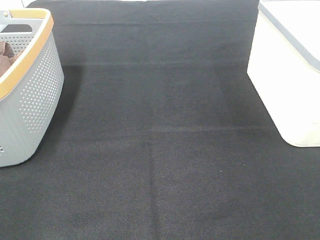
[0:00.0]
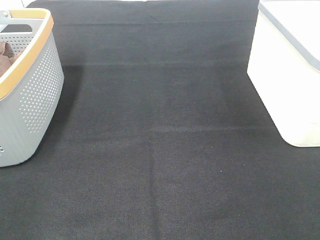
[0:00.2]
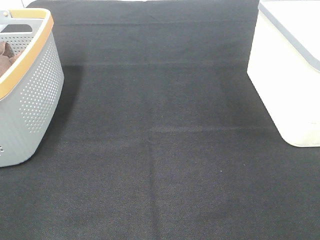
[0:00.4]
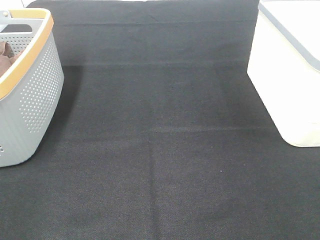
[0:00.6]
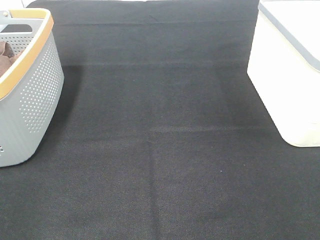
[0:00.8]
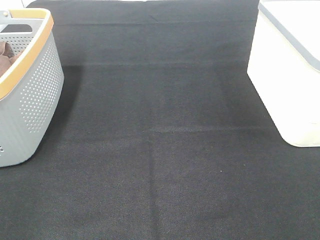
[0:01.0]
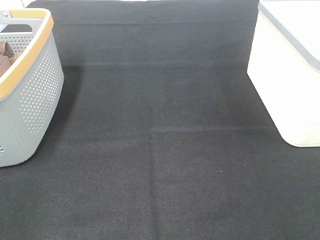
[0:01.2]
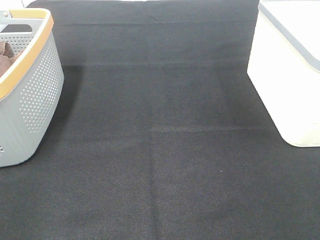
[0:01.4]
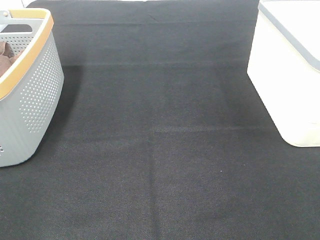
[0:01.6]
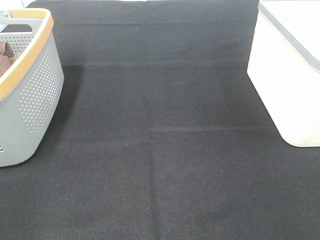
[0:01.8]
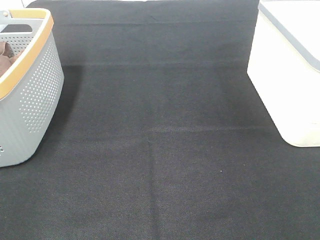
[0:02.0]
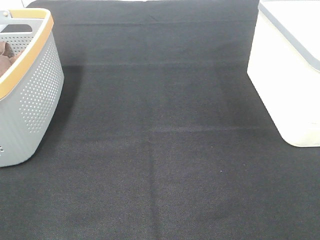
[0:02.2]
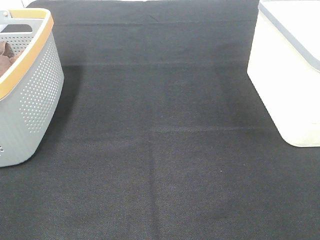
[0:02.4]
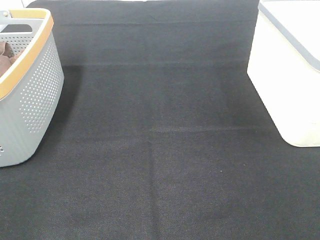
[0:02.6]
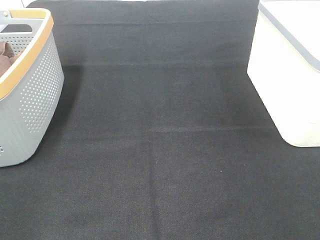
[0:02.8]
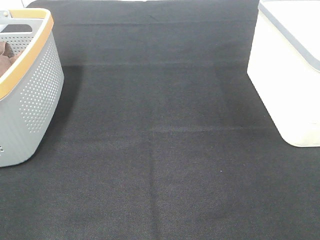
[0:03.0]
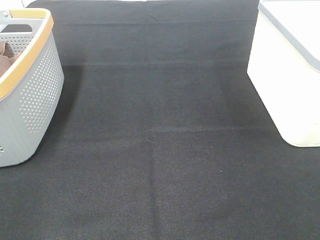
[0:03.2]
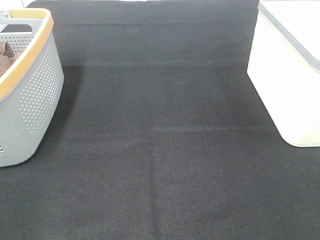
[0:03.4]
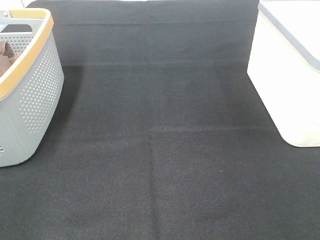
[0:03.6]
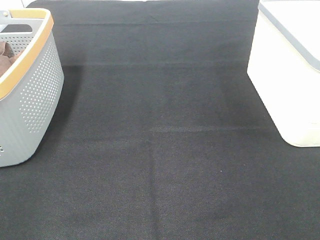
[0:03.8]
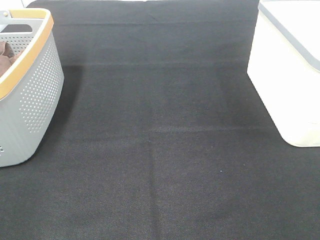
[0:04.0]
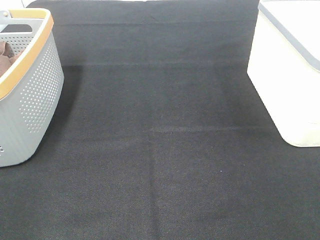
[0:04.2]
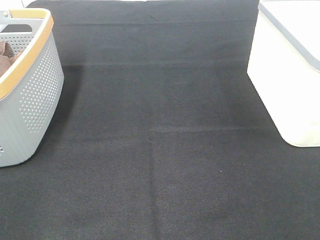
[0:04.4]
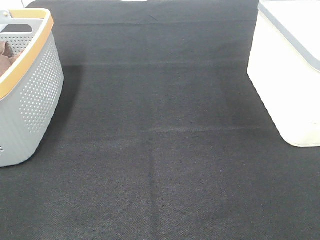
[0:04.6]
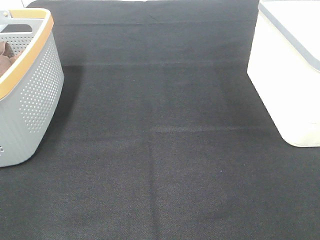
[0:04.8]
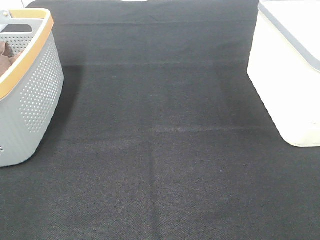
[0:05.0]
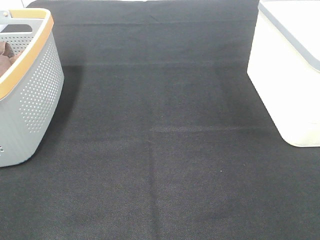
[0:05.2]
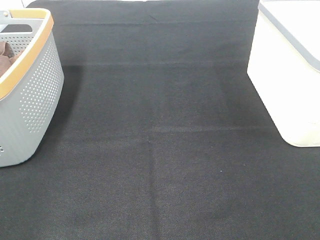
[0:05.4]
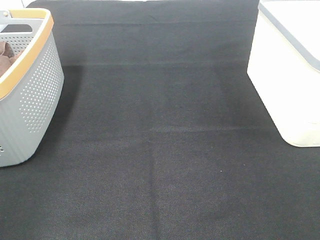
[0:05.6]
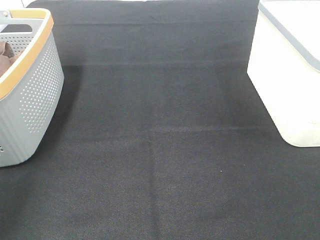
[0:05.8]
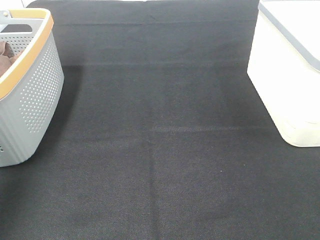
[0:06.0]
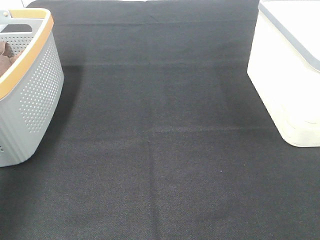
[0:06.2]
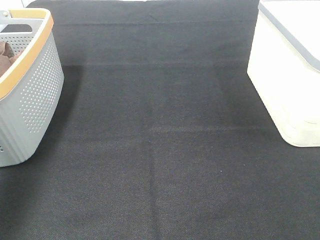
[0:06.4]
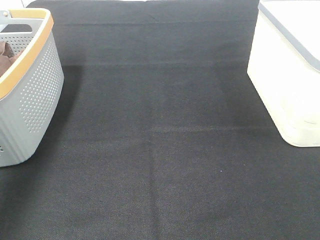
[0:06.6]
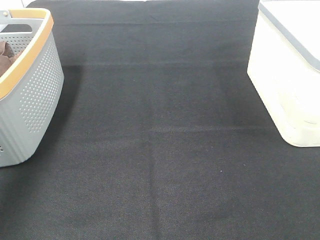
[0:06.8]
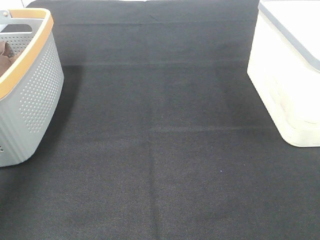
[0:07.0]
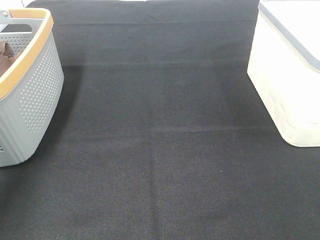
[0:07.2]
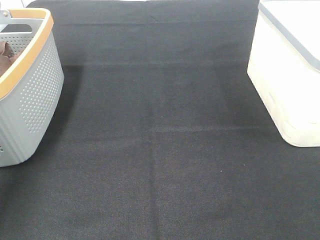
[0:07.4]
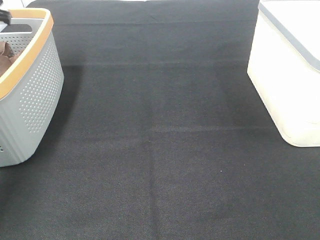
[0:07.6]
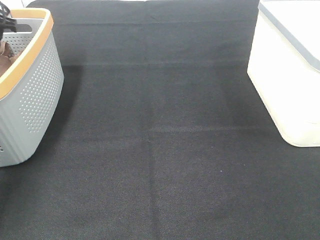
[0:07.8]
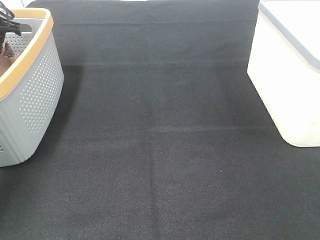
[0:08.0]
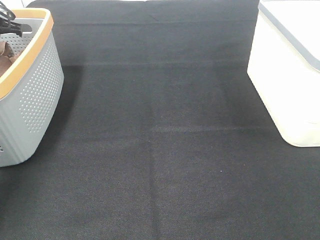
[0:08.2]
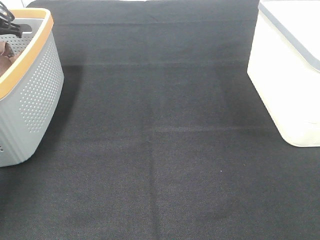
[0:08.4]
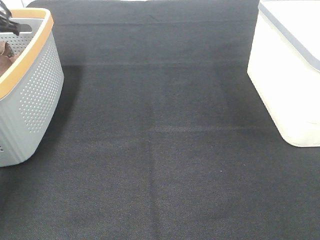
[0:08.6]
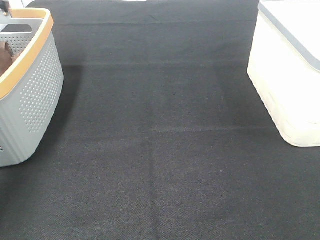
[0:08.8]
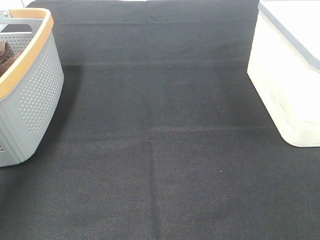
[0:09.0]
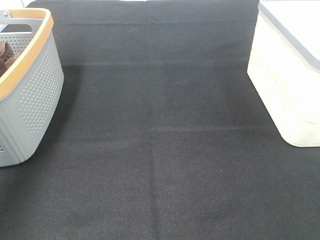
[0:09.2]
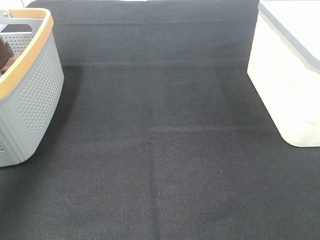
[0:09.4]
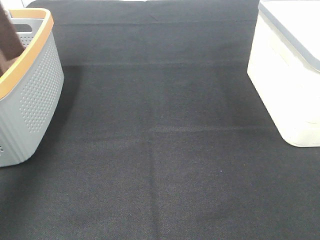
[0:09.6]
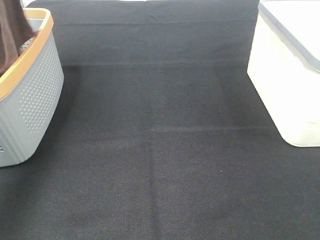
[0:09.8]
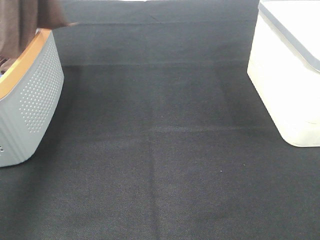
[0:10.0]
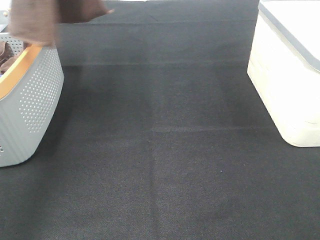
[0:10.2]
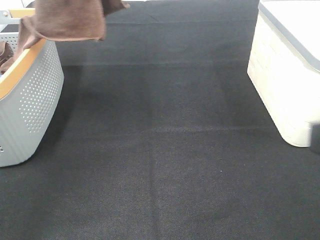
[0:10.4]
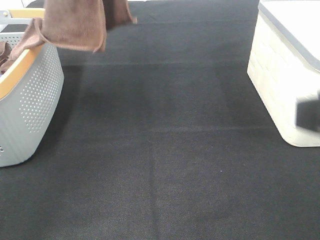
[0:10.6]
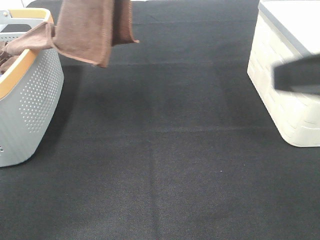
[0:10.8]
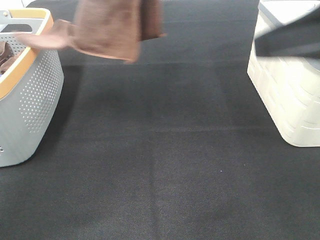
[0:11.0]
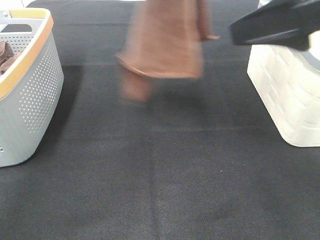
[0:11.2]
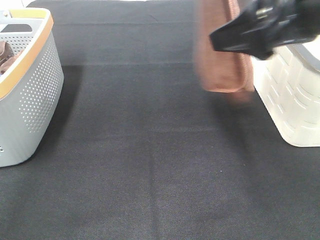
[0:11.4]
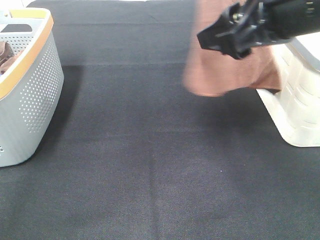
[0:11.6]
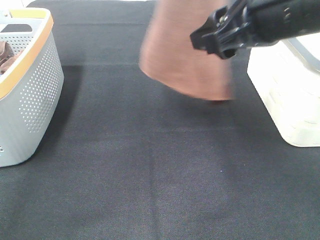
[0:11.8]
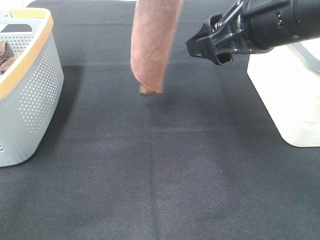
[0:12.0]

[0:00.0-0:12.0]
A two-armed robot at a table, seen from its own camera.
Task of the whole recording: Remove the towel and place it.
0:00.0 to 0:04.4: Neither gripper changes place.
0:04.4 to 0:06.0: The left gripper goes roughly 20 cm forward and upward.
0:06.0 to 0:07.6: The left gripper is displaced forward by roughly 30 cm.
0:09.0 to 0:10.4: The left gripper moves to the right, upward and backward, about 25 cm; the right gripper heads forward, covering approximately 5 cm.
0:10.4 to 0:12.0: The right gripper moves forward and to the left, roughly 20 cm. The left gripper goes approximately 15 cm to the right and downward.

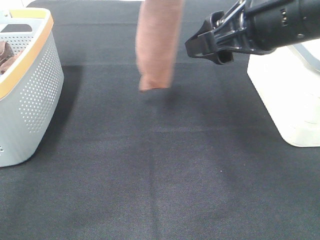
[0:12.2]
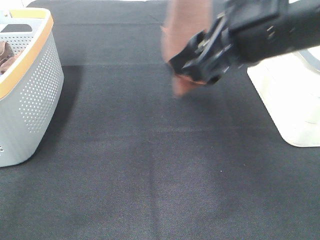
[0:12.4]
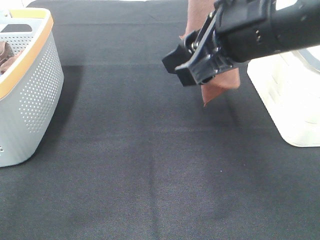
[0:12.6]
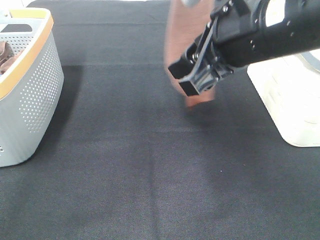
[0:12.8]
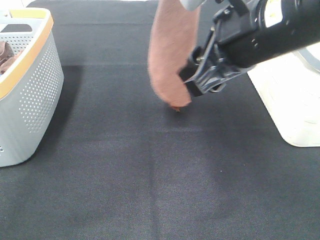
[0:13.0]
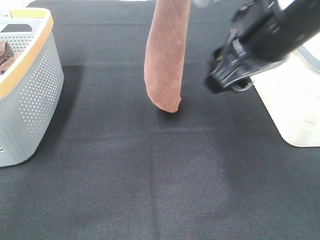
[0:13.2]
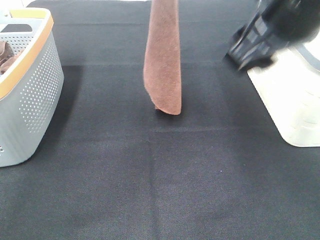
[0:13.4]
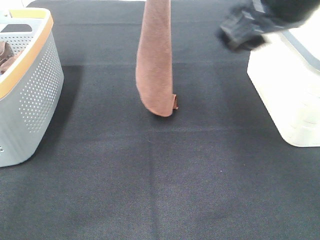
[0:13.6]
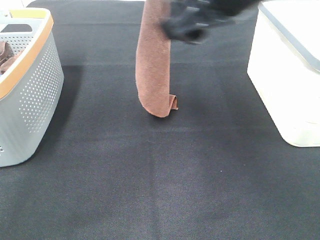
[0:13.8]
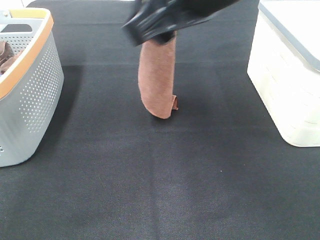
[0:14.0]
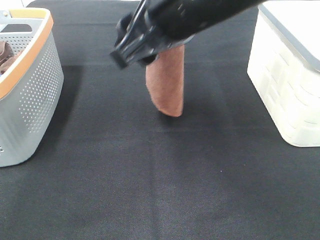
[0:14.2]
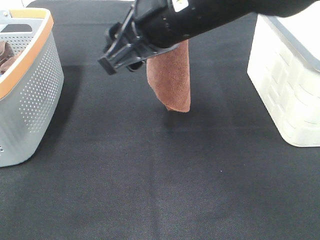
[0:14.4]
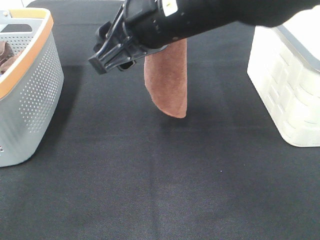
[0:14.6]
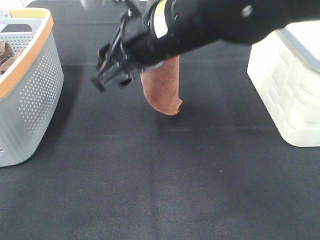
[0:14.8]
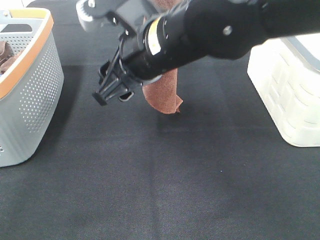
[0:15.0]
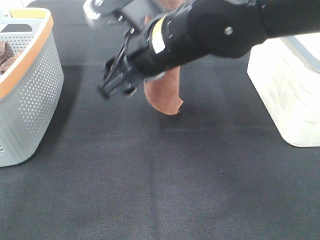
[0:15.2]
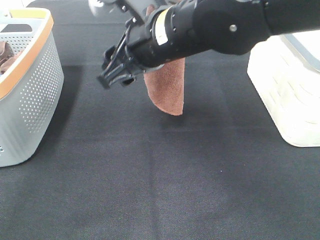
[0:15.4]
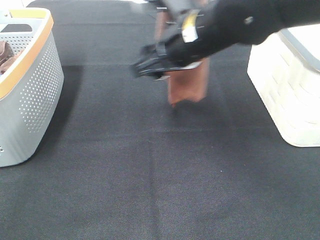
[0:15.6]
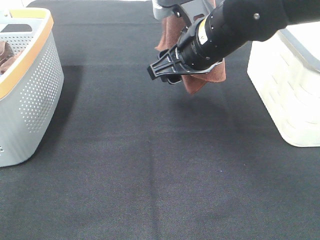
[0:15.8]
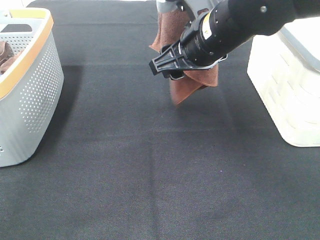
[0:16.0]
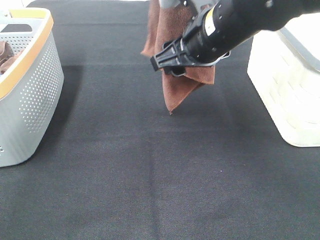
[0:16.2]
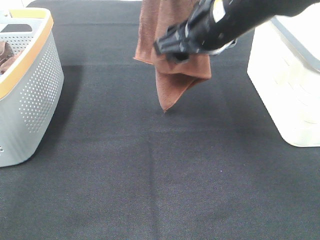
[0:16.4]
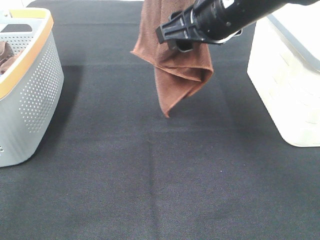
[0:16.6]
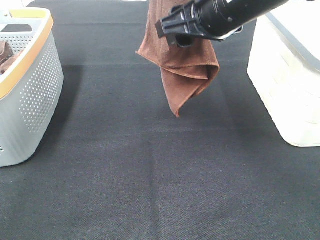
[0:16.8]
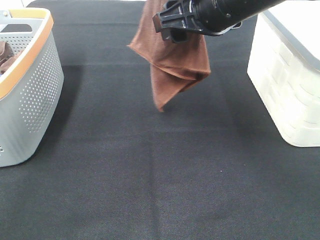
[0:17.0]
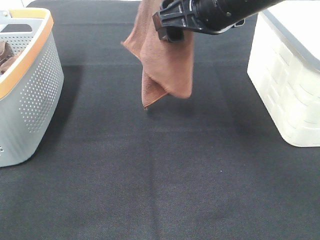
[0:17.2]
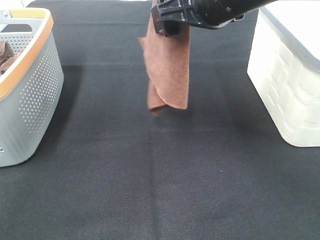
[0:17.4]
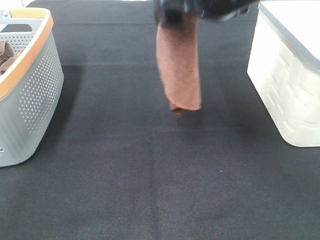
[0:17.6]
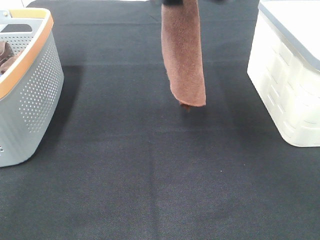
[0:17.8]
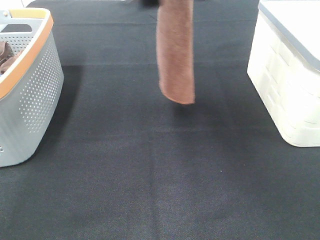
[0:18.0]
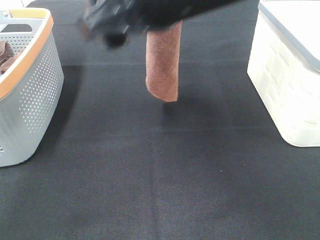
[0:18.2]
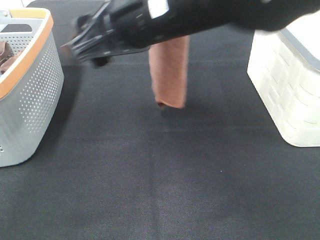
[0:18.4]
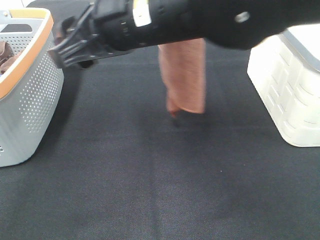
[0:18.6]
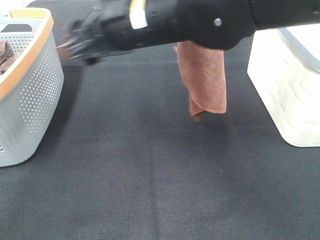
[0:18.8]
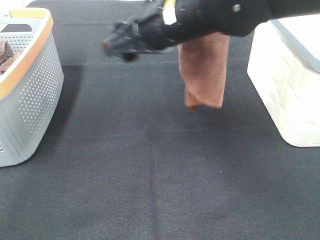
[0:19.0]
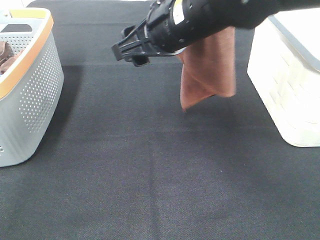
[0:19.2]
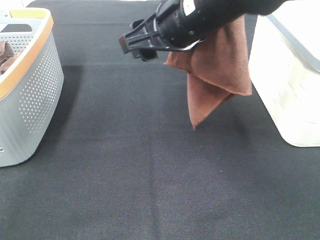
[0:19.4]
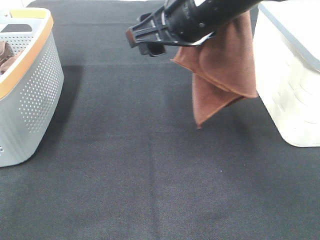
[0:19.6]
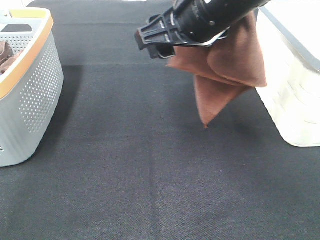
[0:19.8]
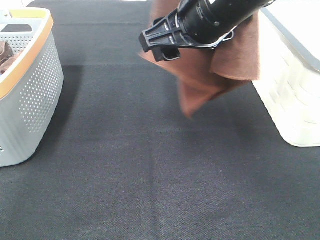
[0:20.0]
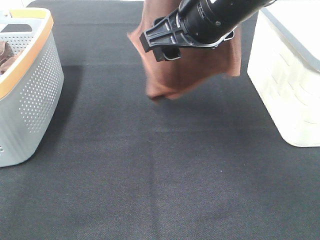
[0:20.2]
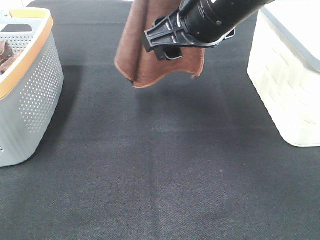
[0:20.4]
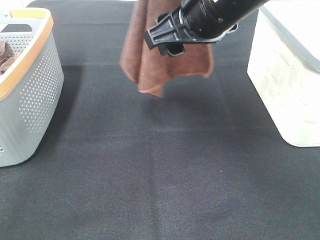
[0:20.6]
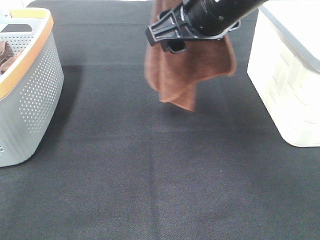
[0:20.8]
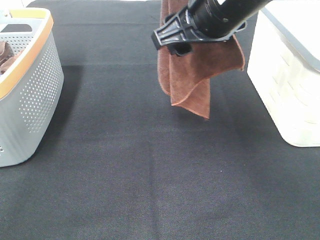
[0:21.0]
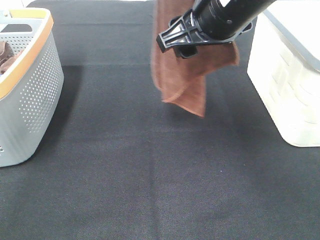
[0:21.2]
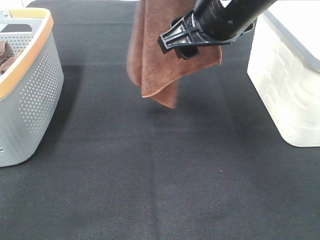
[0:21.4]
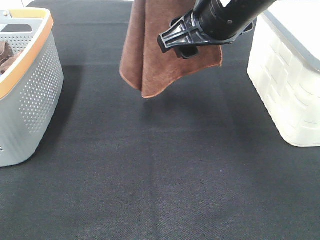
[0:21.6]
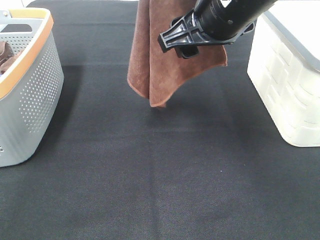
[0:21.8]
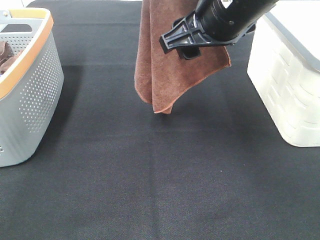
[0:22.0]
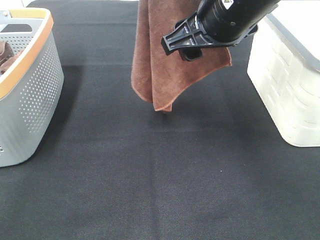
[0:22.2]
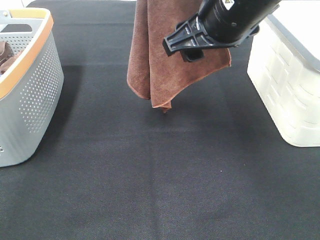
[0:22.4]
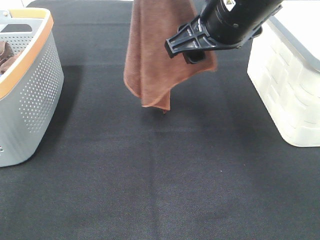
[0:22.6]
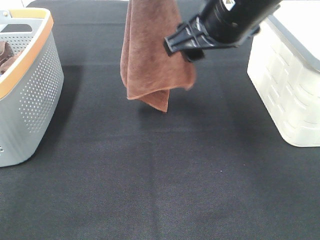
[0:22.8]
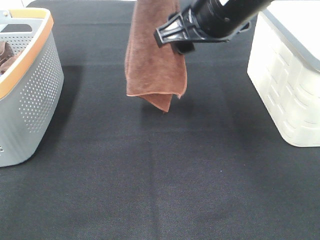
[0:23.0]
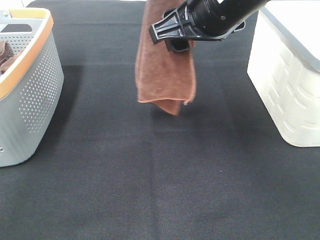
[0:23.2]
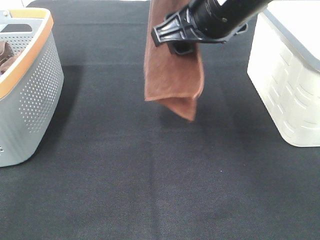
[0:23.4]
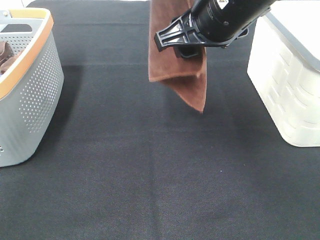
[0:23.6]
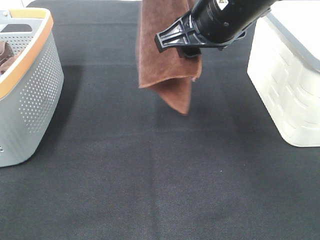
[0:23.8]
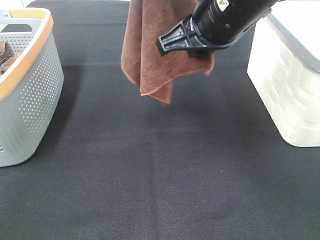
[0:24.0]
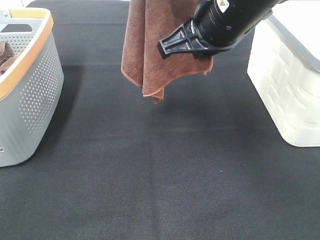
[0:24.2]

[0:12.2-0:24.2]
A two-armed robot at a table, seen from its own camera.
Task of the whole recording: Remove the towel and place it.
Step, 0:12.2 to 0:20.8: Right hand: grab a corner of the brown towel and straighten it.
Step, 0:21.0 to 0:23.6: Left hand: spread the brown towel flat on the table.
Step, 0:21.0 to 0:23.6: Right hand: spread the brown towel flat on the table.
0:12.2 to 0:13.8: The right gripper travels to the left by approximately 5 cm.
0:13.8 to 0:15.2: The right gripper is displaced downward and to the left by about 10 cm.
0:15.2 to 0:16.6: The right gripper is displaced to the right by about 10 cm.
0:16.6 to 0:18.2: The right gripper shifts about 10 cm backward and to the left.
0:18.2 to 0:19.8: The right gripper travels forward by about 5 cm.
0:19.8 to 0:22.6: The grippers make only small movements.
0:22.6 to 0:24.2: The right gripper closes up.
